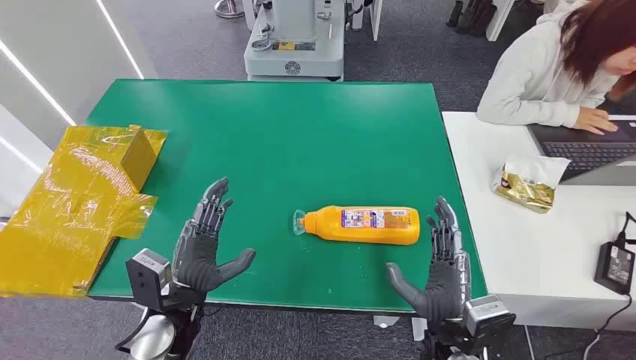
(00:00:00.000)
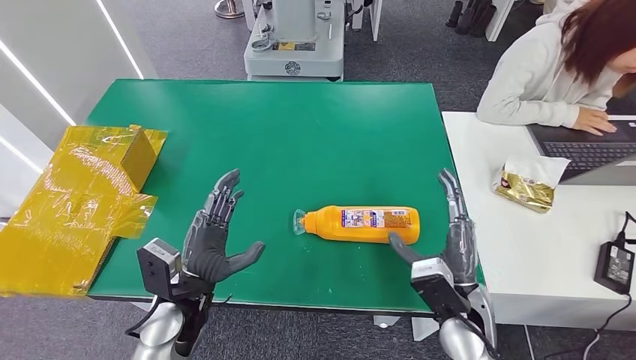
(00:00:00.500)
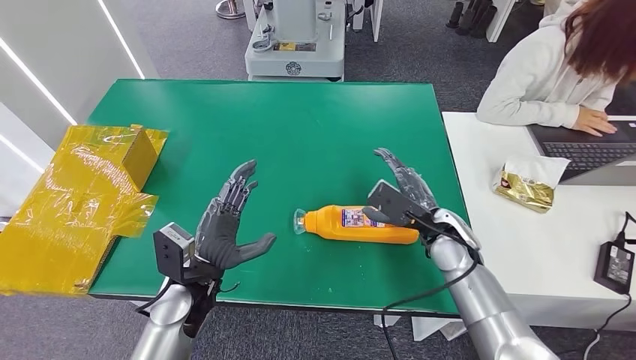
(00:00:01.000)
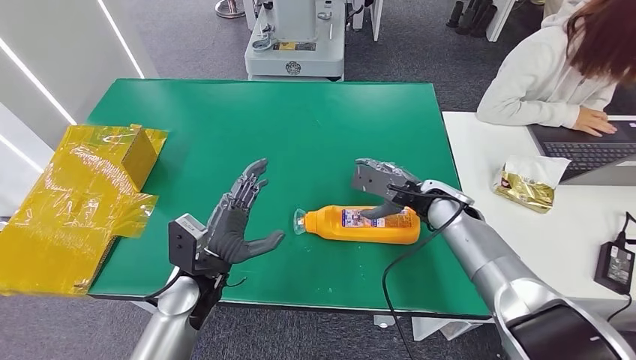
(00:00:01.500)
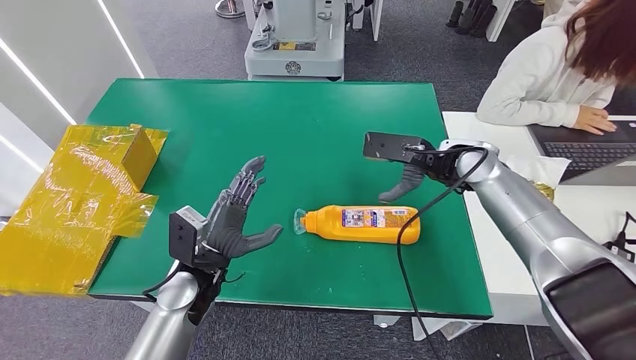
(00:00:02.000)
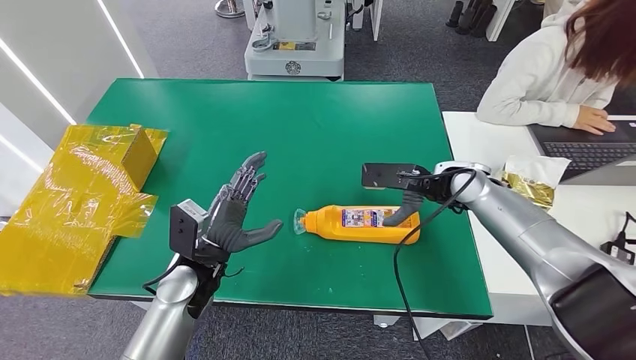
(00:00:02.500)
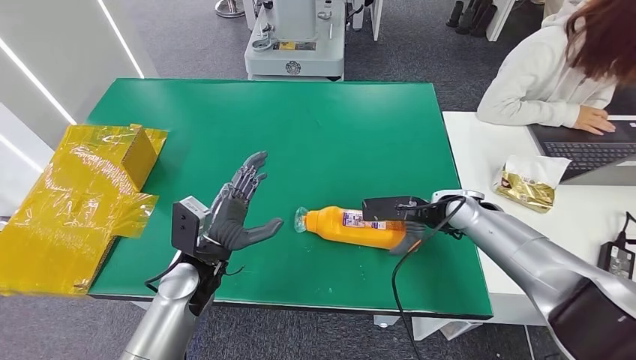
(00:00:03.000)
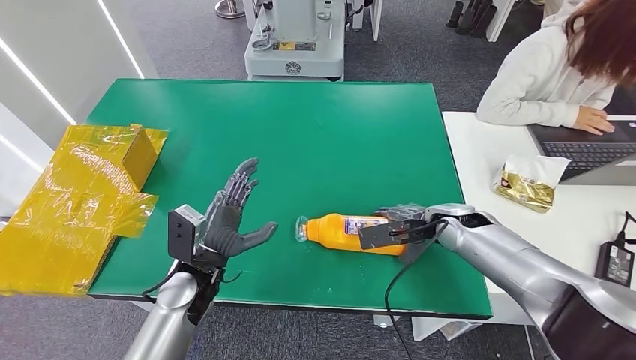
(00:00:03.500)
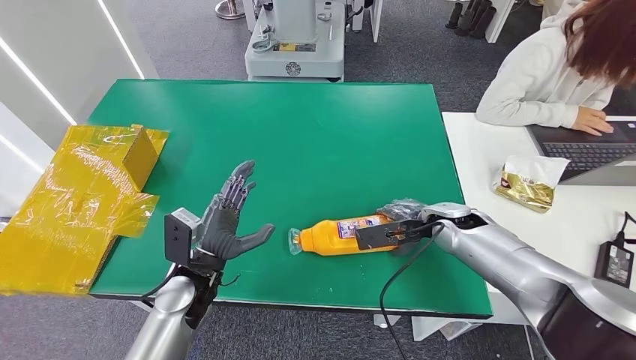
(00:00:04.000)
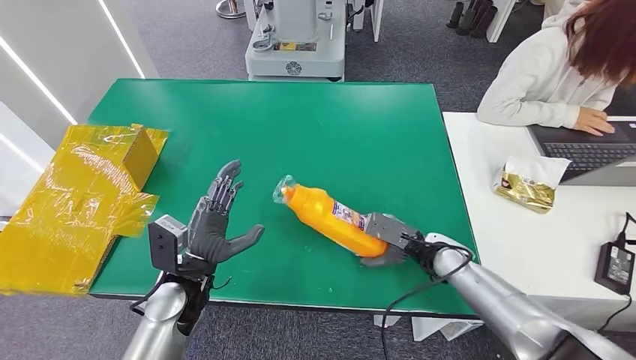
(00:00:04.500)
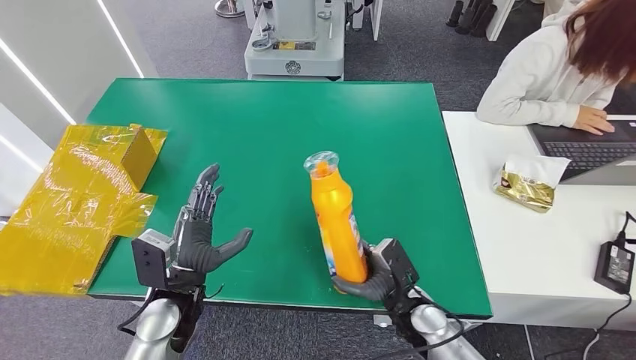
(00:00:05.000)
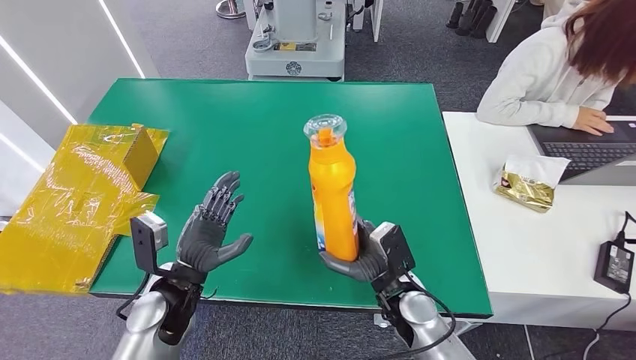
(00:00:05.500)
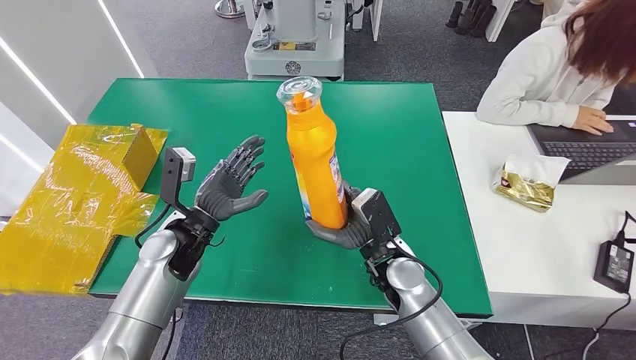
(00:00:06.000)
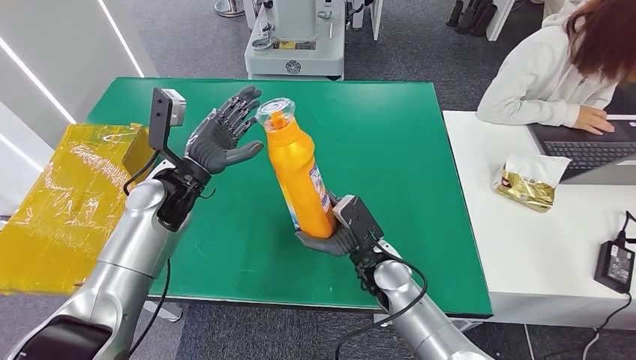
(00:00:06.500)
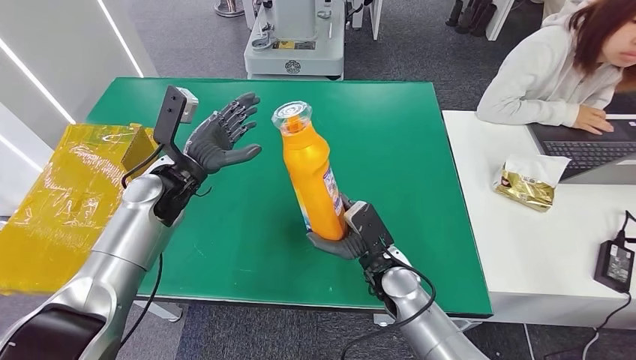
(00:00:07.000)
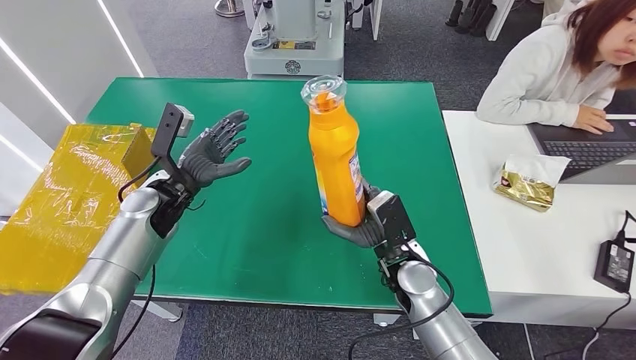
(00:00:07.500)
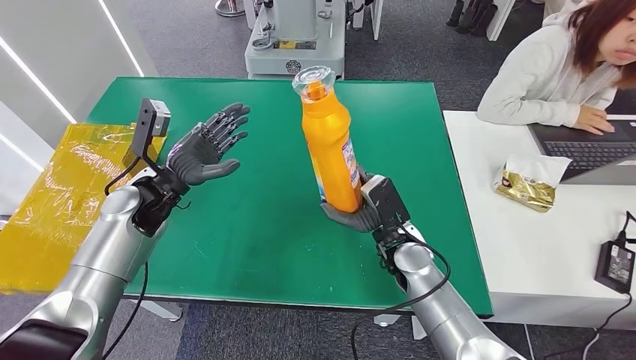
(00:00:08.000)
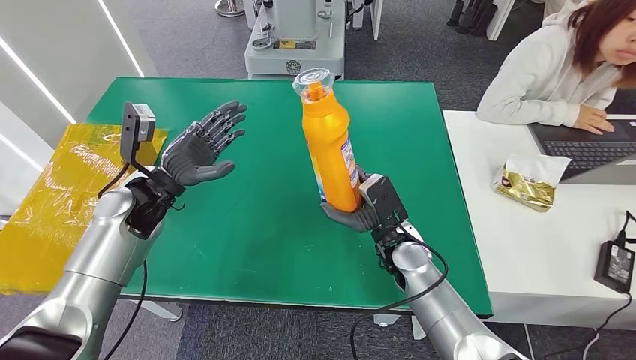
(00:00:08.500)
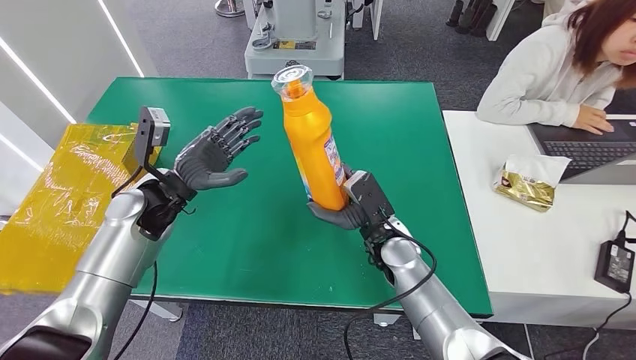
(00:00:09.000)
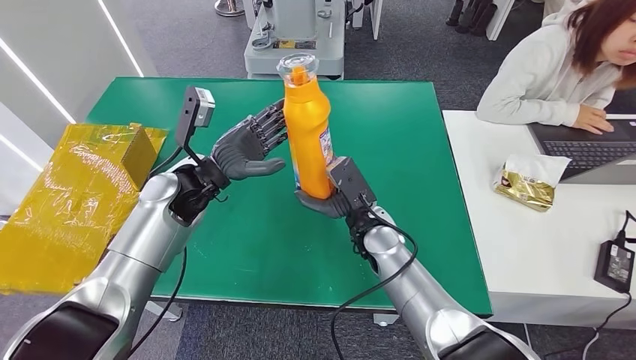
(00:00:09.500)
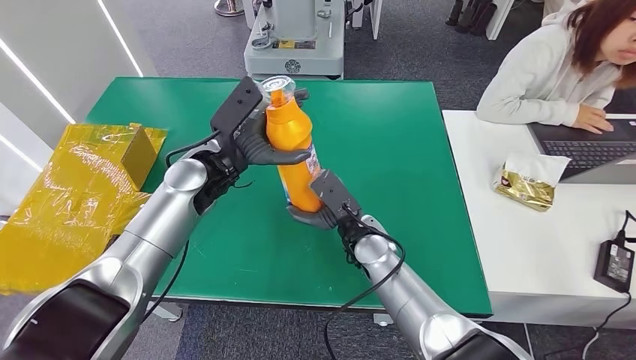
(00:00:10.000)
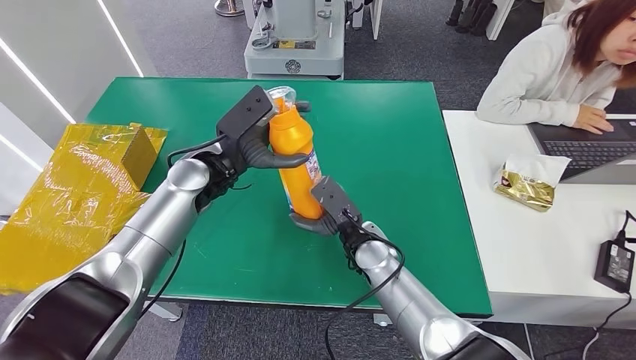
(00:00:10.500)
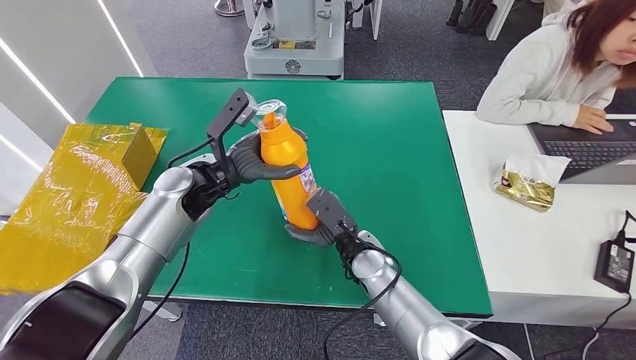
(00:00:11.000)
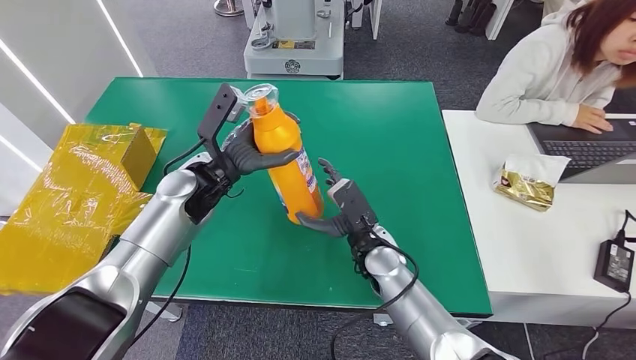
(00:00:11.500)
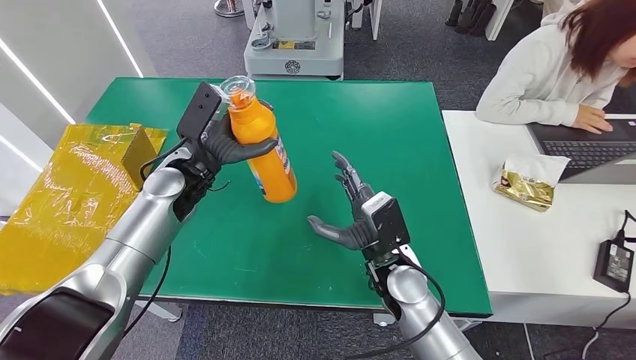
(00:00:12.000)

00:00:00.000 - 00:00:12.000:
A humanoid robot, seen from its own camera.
Step, 00:00:00.000 - 00:00:07.000: Pick up the bottle from the table.
00:00:02.000 - 00:00:04.000: The right hand travels downward by roughly 10 cm.
00:00:10.000 - 00:00:12.000: The right hand travels backward by some 5 cm; the left hand changes place by approximately 5 cm.

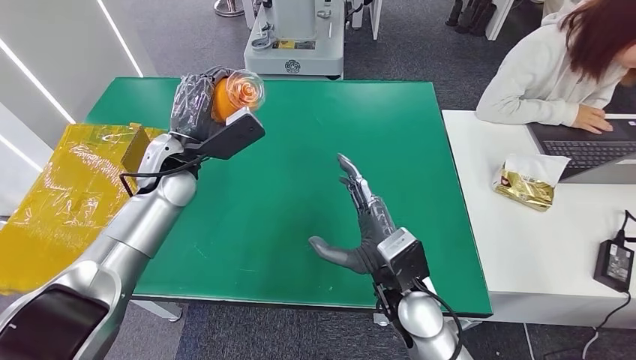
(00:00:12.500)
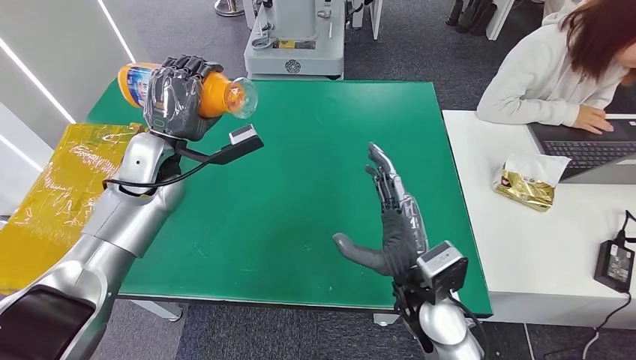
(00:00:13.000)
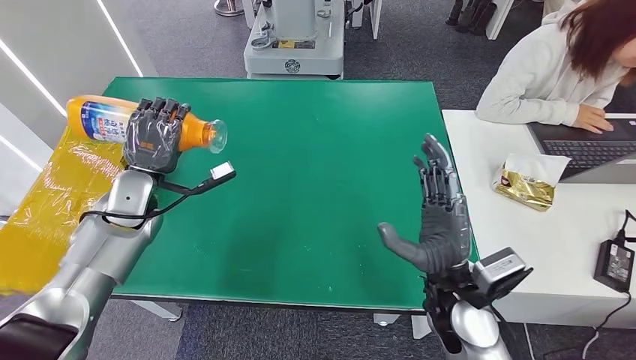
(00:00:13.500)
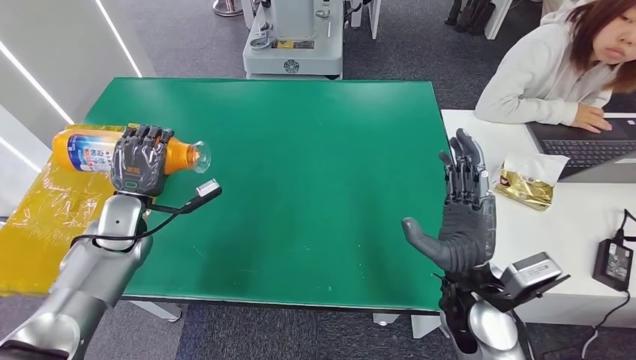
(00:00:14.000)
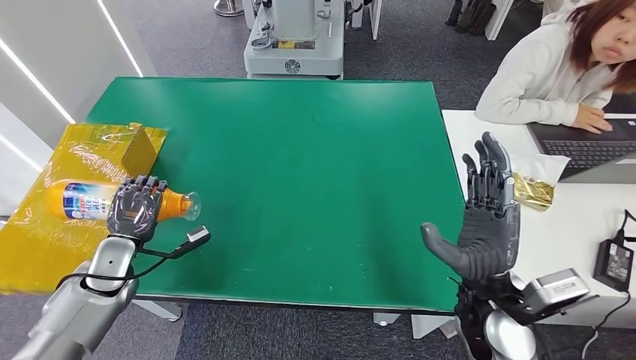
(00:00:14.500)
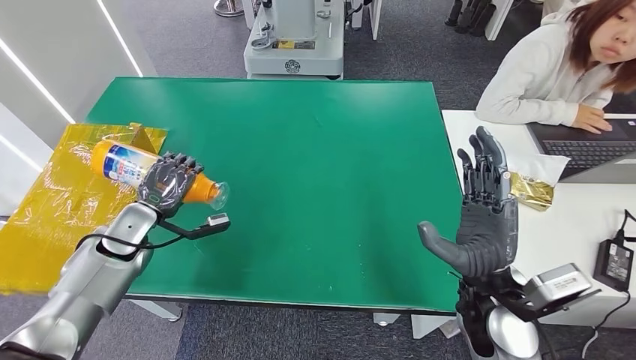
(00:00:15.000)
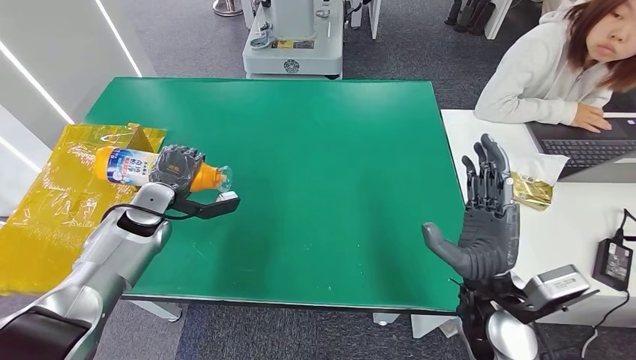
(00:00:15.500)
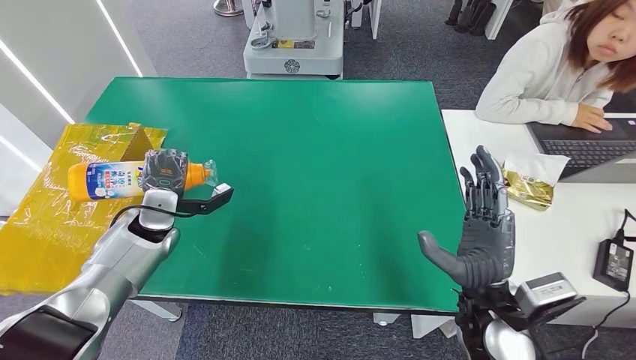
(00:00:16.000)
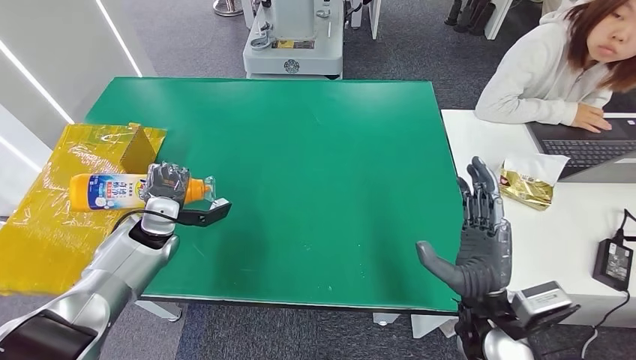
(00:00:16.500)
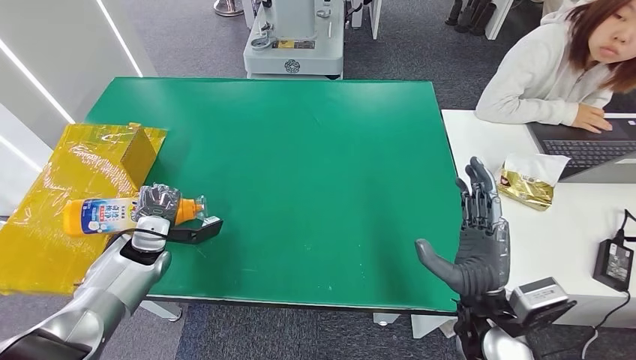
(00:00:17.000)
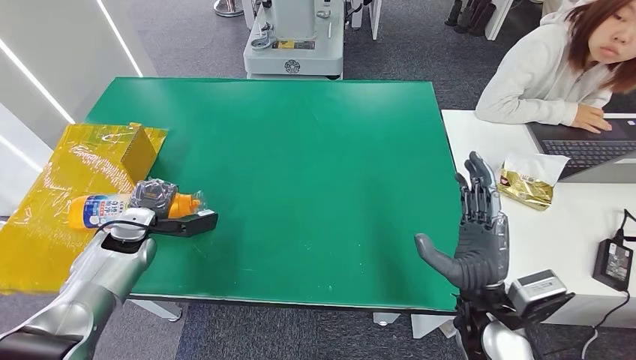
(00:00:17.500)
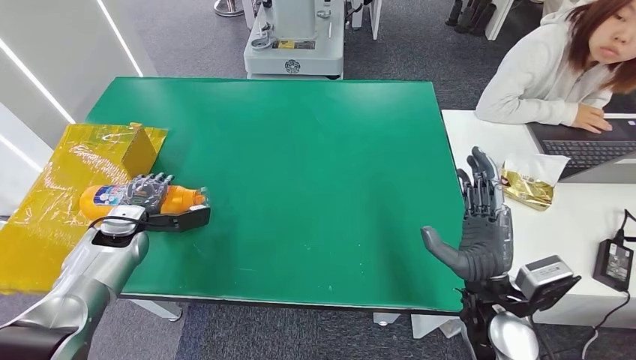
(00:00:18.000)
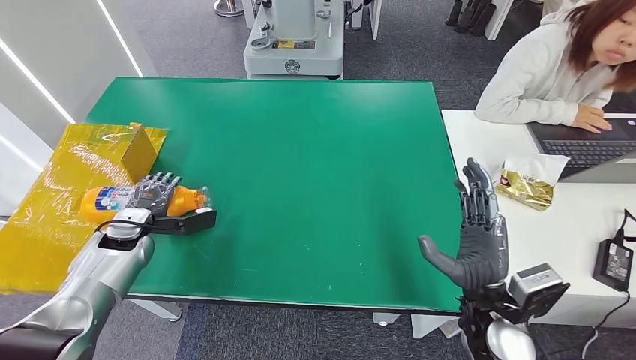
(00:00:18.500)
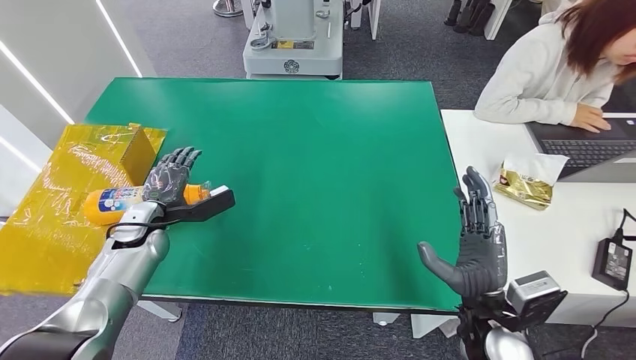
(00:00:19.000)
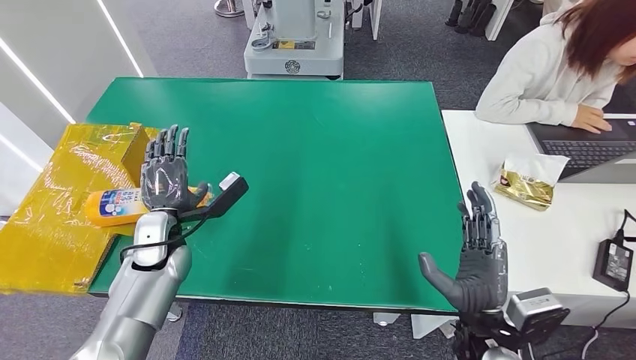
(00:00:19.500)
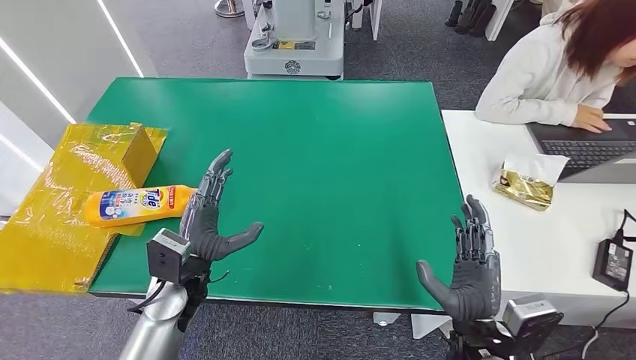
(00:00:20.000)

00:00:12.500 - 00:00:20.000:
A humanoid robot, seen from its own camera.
Step, 00:00:12.500 - 00:00:19.500: Turn the bottle to the front side.
00:00:14.500 - 00:00:16.500: The left hand heads forward and to the right, covering roughly 10 cm.
00:00:16.500 - 00:00:18.000: The left hand shifts approximately 5 cm to the left.
00:00:18.000 - 00:00:20.000: The left hand travels to the right and backward by roughly 20 cm. The right hand is displaced backward by some 5 cm.
